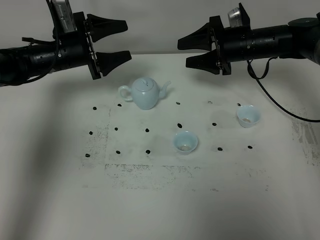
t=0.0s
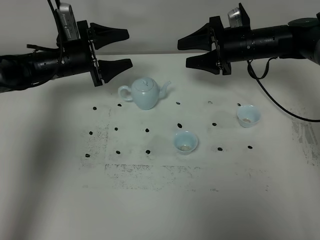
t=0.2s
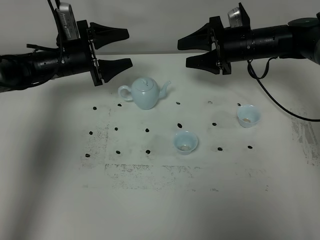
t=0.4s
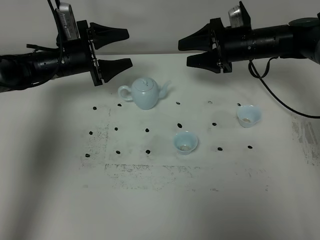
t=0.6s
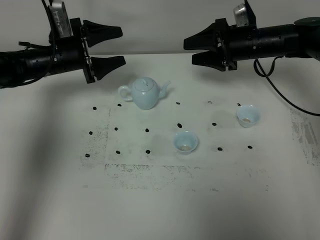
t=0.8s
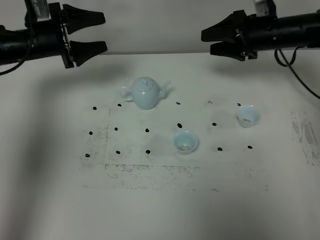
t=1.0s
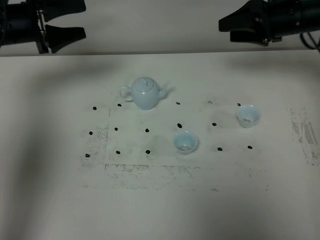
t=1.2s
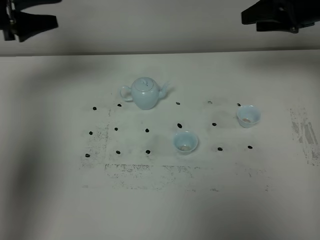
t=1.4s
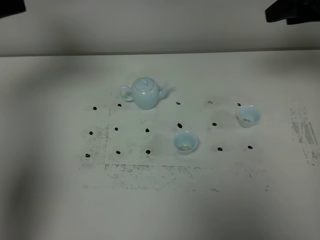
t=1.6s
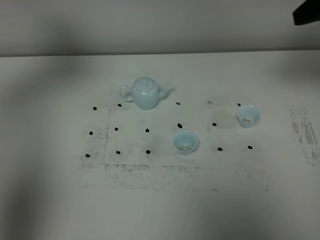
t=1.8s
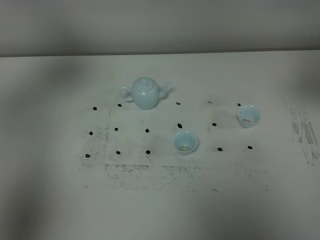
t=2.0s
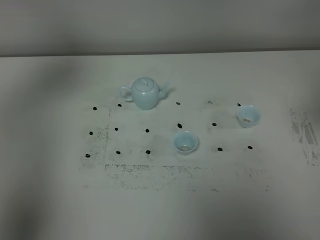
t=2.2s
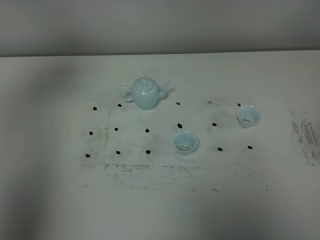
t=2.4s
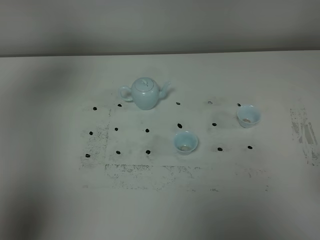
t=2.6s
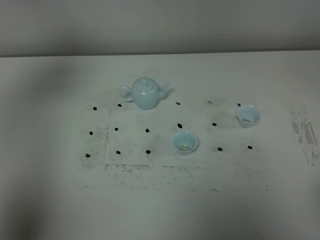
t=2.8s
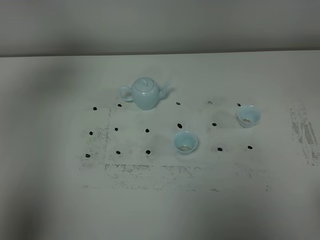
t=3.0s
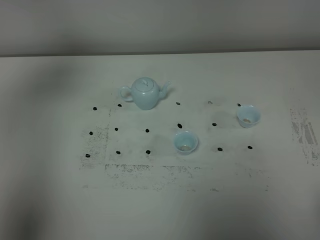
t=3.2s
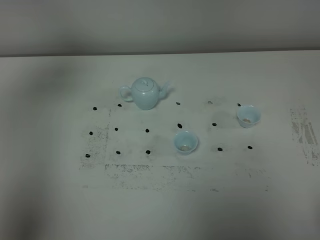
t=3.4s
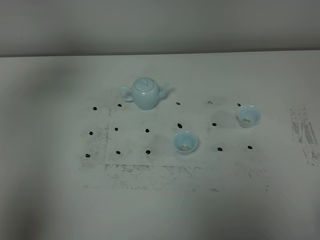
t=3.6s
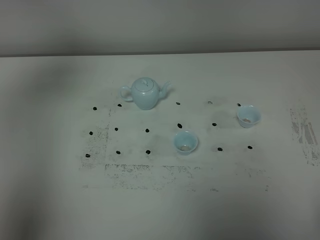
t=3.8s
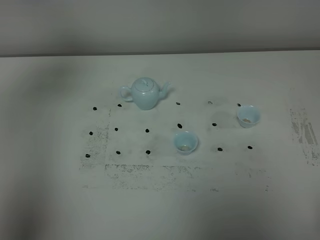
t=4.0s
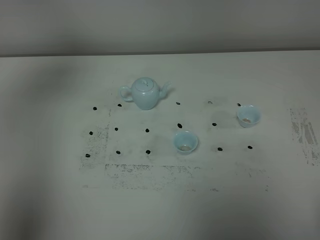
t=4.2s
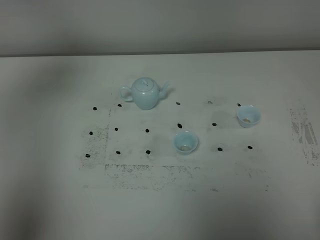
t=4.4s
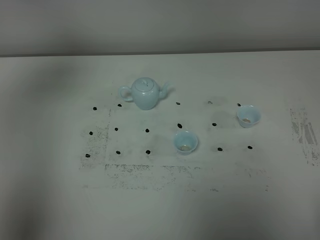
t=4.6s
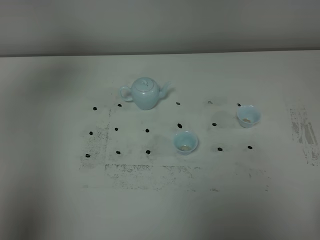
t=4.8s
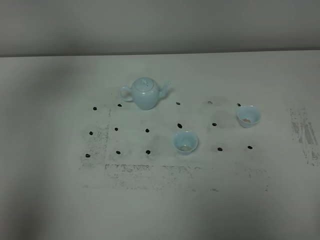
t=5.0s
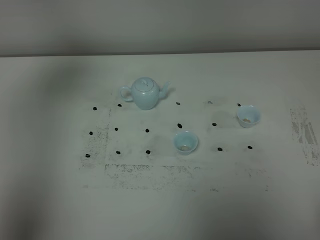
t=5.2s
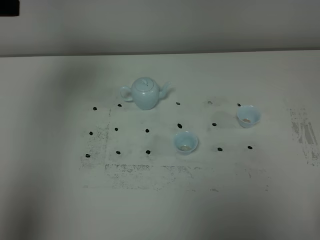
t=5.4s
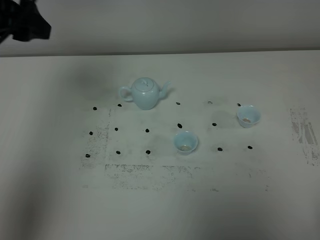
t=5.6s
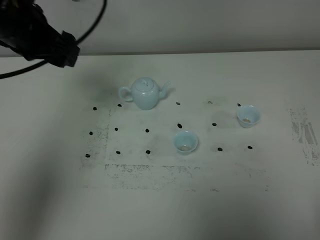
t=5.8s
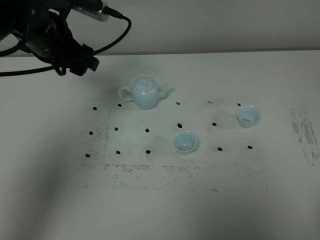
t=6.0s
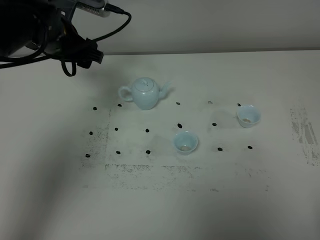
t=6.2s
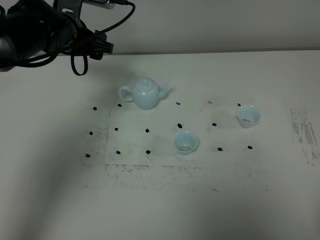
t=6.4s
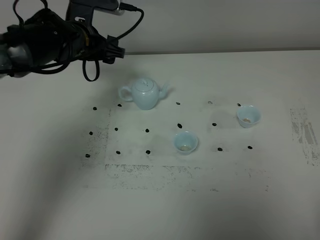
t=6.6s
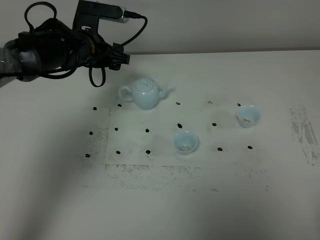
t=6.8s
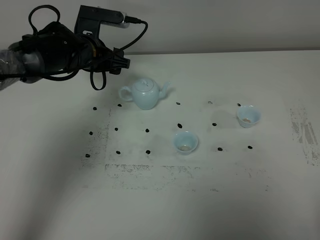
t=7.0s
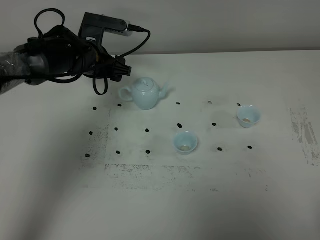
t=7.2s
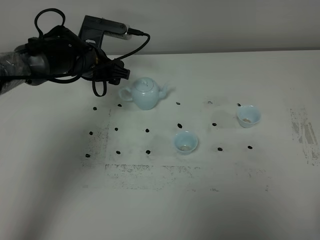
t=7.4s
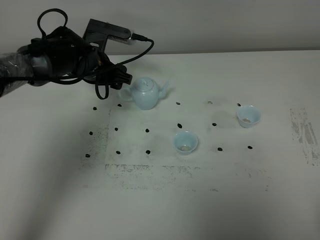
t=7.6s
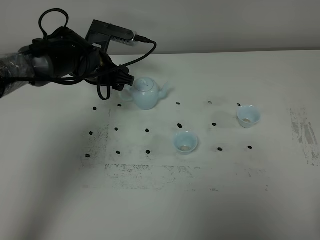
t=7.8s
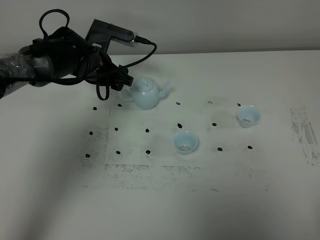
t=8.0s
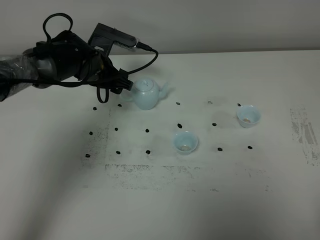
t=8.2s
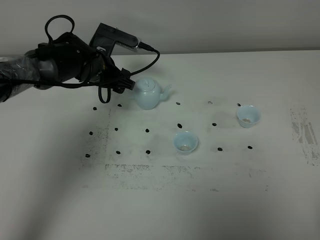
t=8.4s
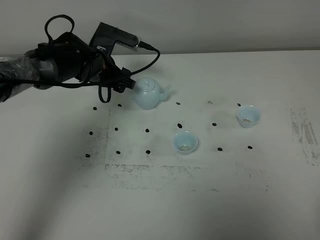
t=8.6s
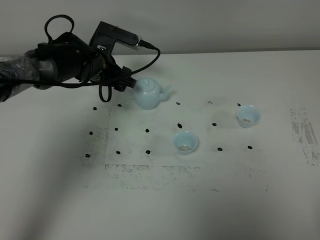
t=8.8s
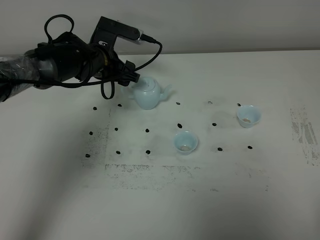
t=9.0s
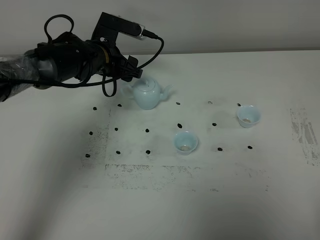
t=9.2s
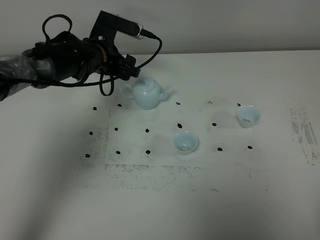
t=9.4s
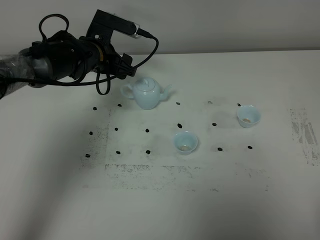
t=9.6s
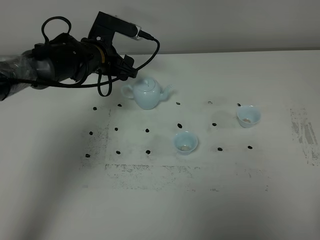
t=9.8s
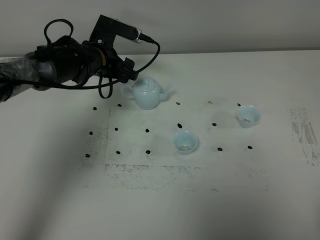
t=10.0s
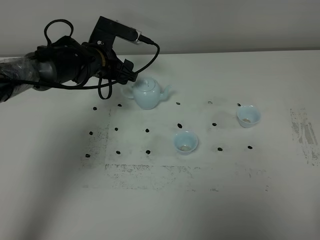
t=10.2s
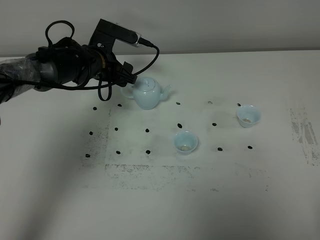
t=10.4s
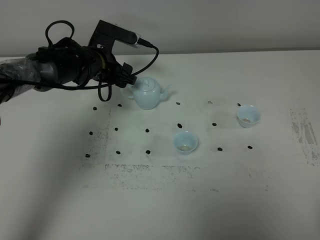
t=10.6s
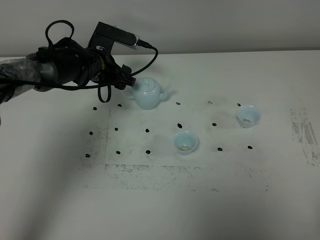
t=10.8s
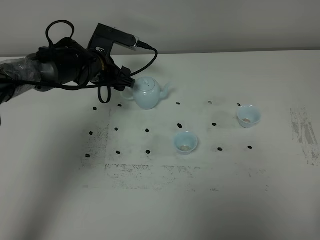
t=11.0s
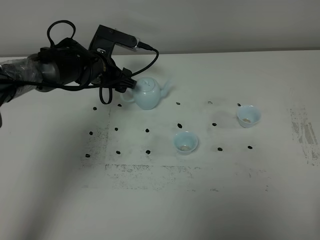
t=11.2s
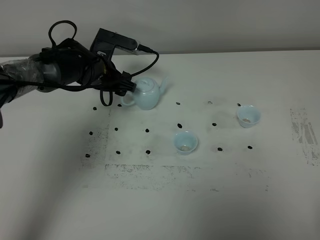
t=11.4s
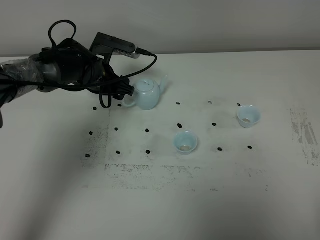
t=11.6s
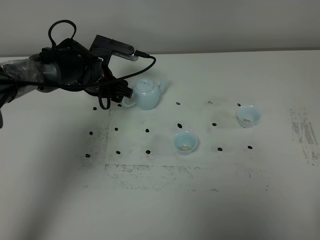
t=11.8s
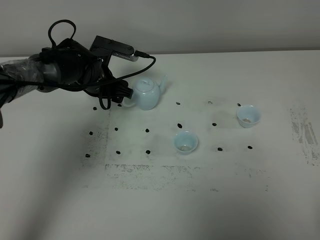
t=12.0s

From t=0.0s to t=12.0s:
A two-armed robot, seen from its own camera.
Task of the whole recording: grasp the blue porcelain teapot and pour the tea into the two blue porcelain teacups one by one, put the blue porcelain teapot back in its original place.
From t=0.0s to t=1.6s: The right gripper shifts approximately 20 cm upward, to the right and backward. Meanwhile the left gripper heads upward, to the left and backward, covering approximately 25 cm.
From t=1.6s to t=3.0s: The right gripper heads backward, covering some 35 cm. Meanwhile the left gripper goes approximately 10 cm backward and upward.
From t=4.4s to t=6.0s: The left gripper moves to the right, downward and forward, some 25 cm.
From t=6.0s to t=7.6s: The left gripper heads downward and forward, covering about 10 cm.
From t=7.6s to t=12.0s: The grippers move only a little.

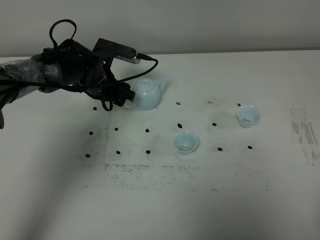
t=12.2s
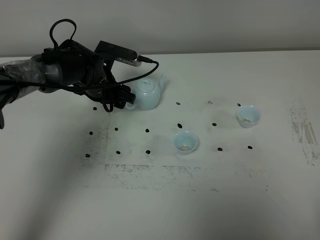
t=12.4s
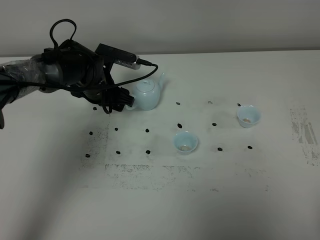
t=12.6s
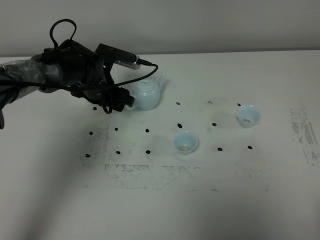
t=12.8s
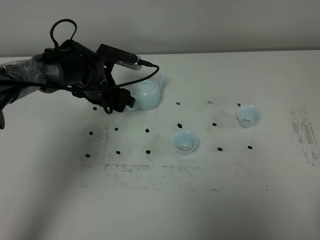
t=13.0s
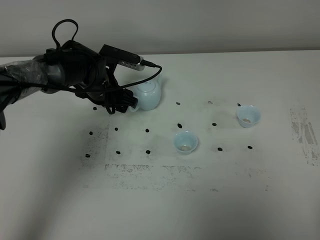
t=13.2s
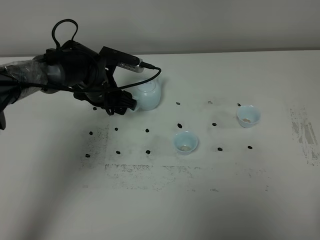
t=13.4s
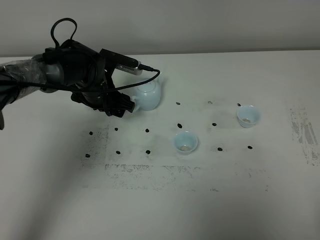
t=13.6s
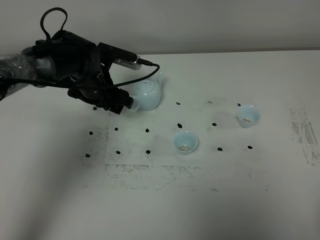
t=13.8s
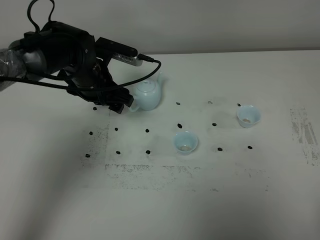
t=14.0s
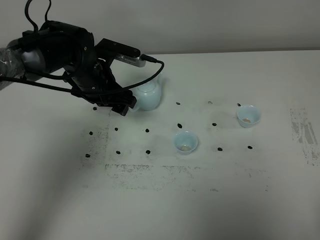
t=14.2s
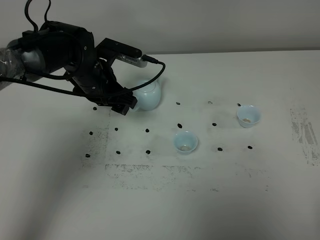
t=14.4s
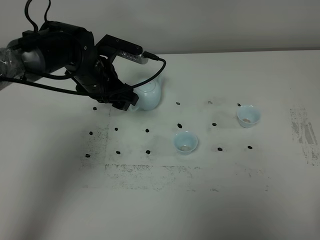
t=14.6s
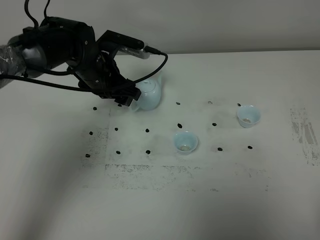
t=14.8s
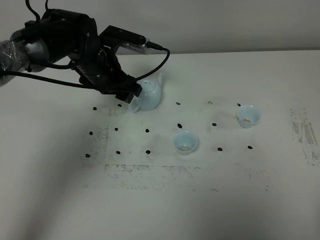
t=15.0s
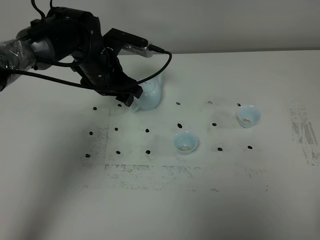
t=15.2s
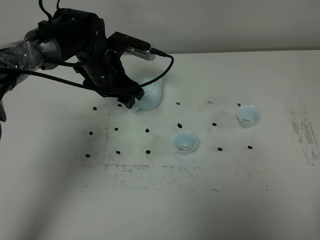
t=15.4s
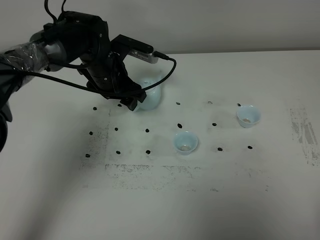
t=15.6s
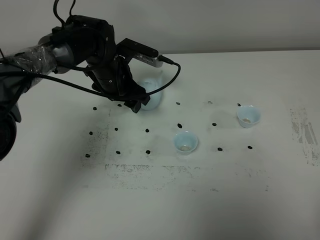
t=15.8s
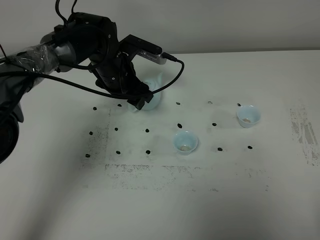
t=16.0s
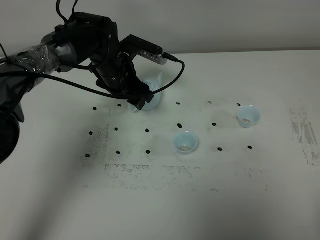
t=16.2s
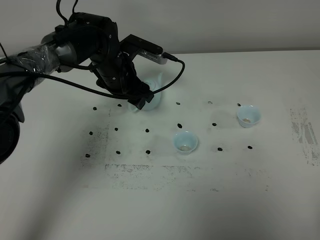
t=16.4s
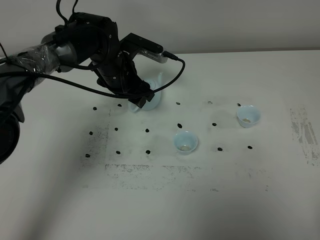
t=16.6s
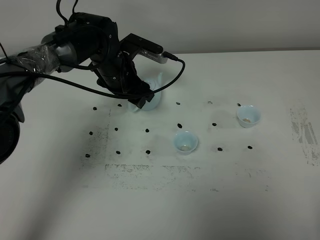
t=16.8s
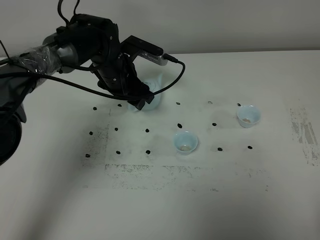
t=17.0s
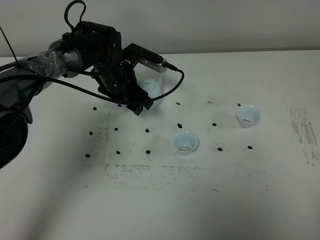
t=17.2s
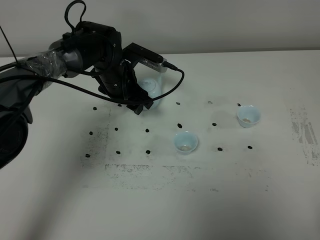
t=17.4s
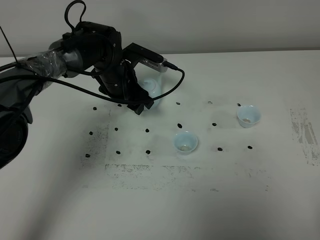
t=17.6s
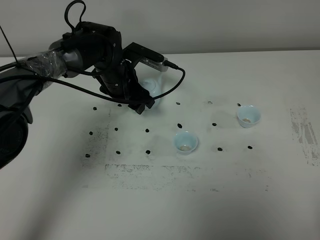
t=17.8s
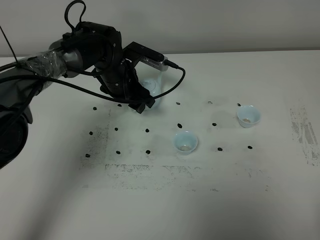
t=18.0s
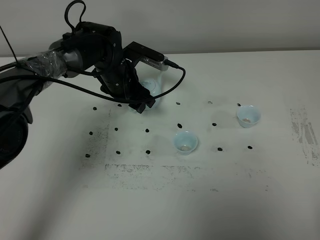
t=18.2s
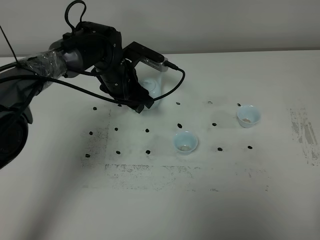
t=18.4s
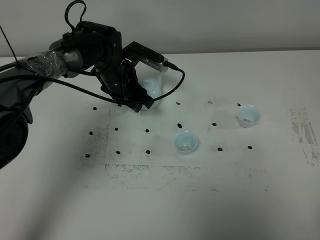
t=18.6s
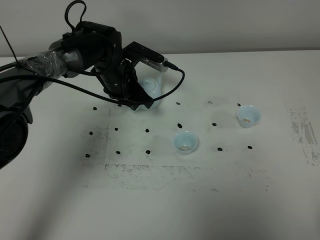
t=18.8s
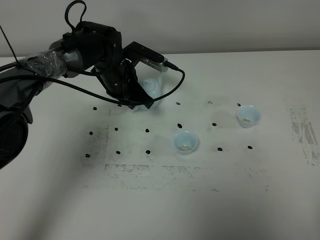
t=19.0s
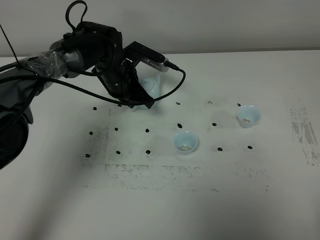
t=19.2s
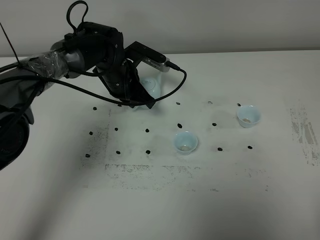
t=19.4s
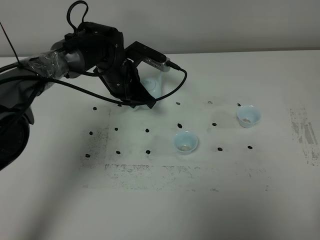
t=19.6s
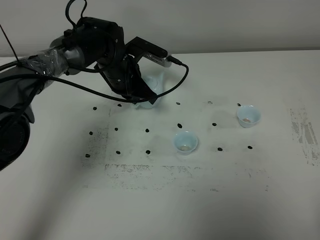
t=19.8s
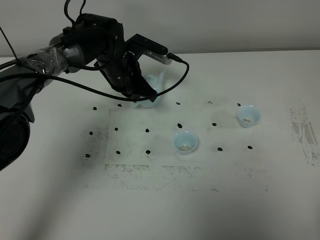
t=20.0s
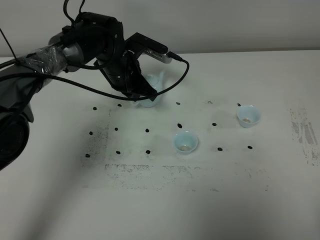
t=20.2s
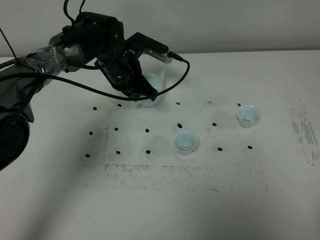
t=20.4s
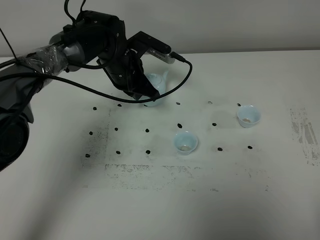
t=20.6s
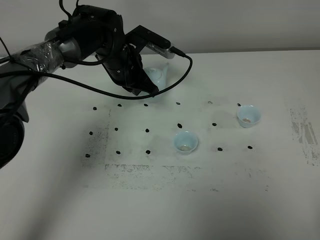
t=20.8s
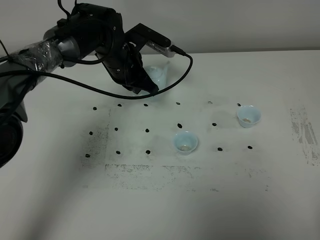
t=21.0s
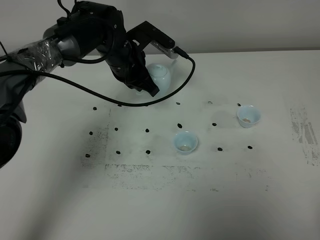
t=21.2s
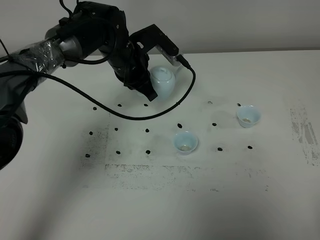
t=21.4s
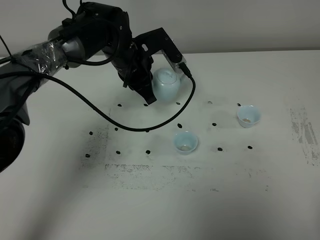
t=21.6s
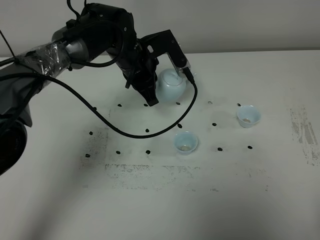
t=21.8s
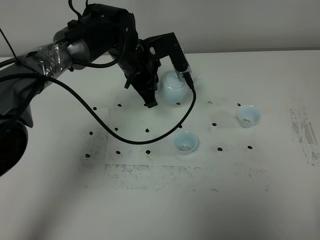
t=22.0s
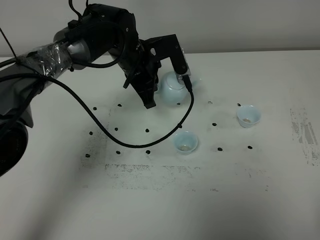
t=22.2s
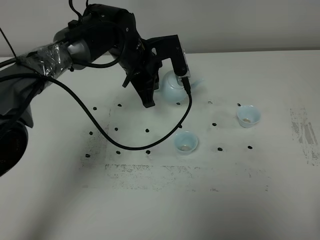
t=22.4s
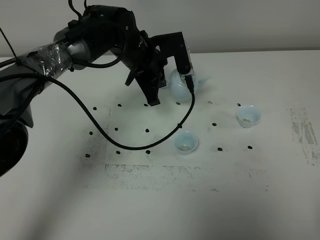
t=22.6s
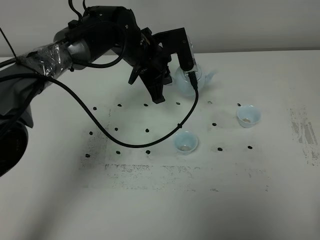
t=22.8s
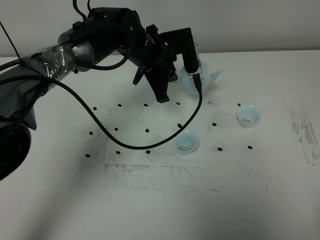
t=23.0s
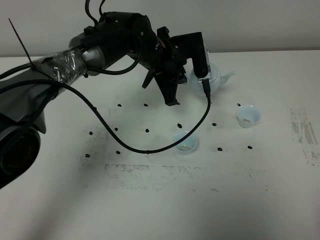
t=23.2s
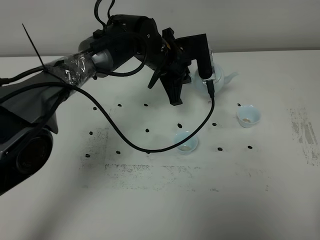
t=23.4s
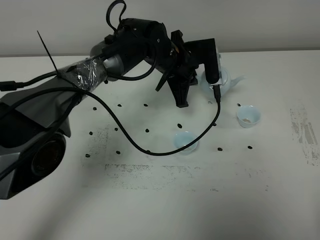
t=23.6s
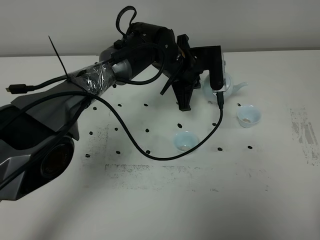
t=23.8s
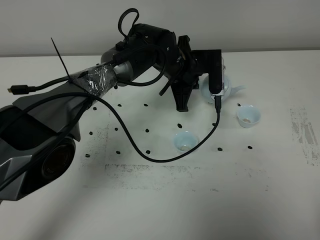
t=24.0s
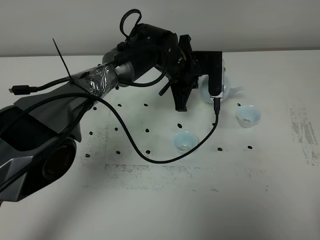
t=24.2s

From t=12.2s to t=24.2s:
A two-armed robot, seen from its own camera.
Task of the whole recording: grasp the blue porcelain teapot and pour the tea into the two blue porcelain teacups one by one, put the blue porcelain teapot back in its original place.
Step, from t=12.2s to t=20.8s: Pick up the teapot with the left gripper.
From t=12.2s to t=13.8s: There are only small adjustments of the grippers.
From t=13.8s to t=18.2s: The grippers move only a little.
From t=18.2s to t=19.8s: The left gripper closes up.
From t=19.8s to t=21.2s: The grippers stay close to where they were, moving slightly.
From t=22.6s to t=24.2s: The left gripper is displaced to the right by about 5 cm.
